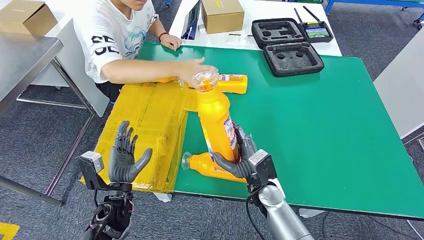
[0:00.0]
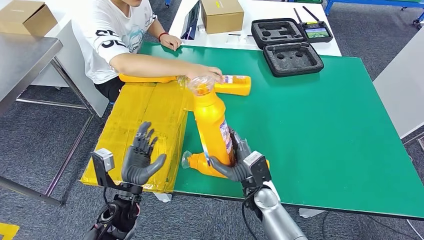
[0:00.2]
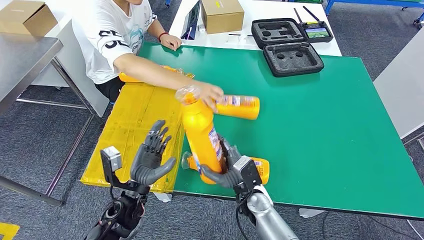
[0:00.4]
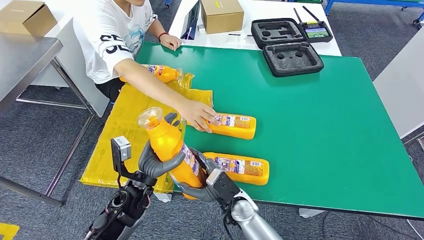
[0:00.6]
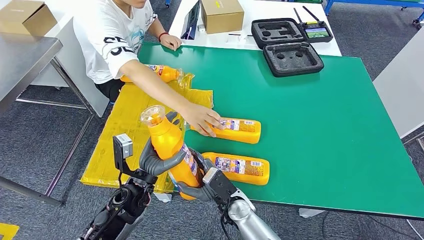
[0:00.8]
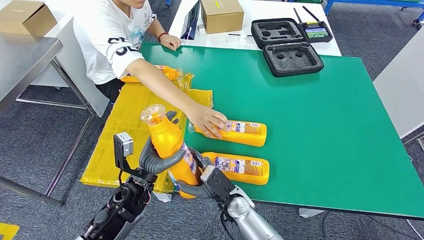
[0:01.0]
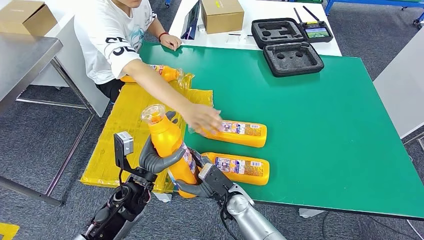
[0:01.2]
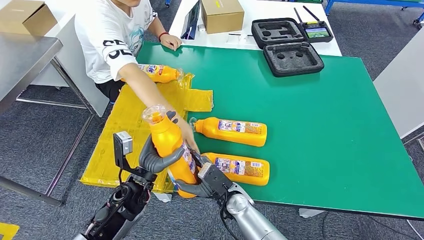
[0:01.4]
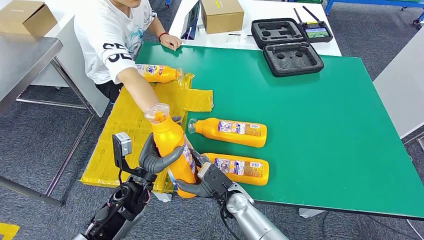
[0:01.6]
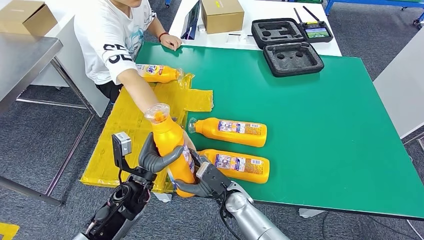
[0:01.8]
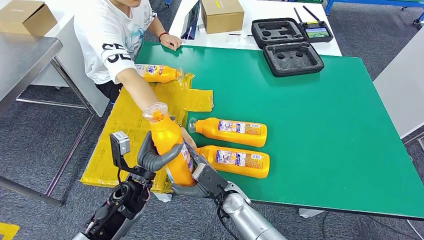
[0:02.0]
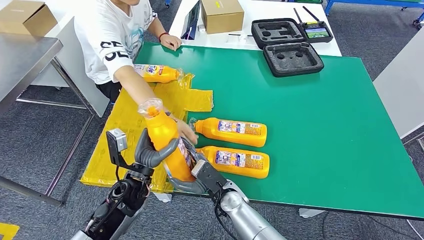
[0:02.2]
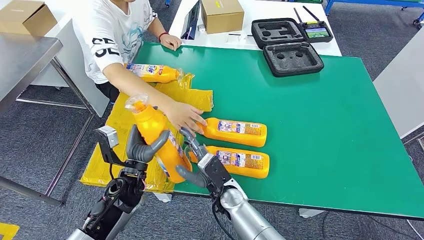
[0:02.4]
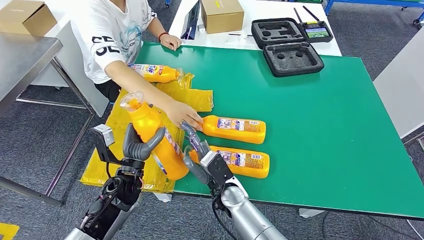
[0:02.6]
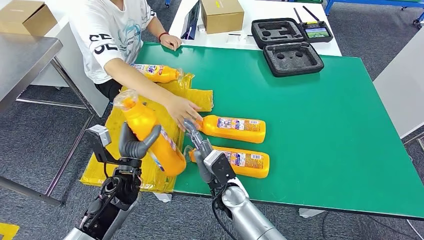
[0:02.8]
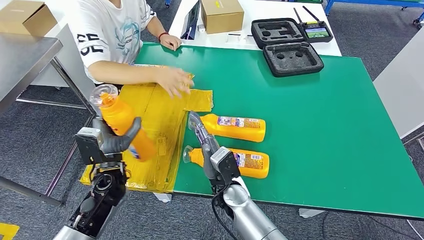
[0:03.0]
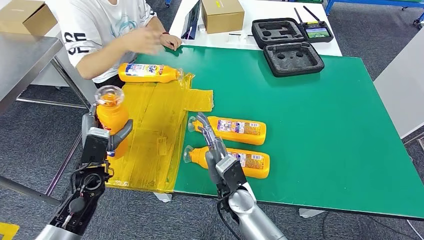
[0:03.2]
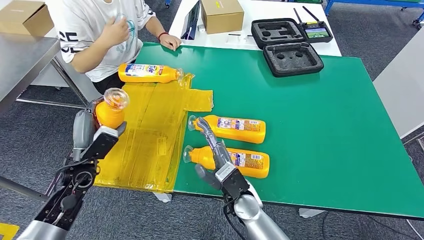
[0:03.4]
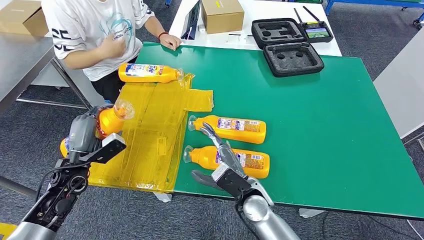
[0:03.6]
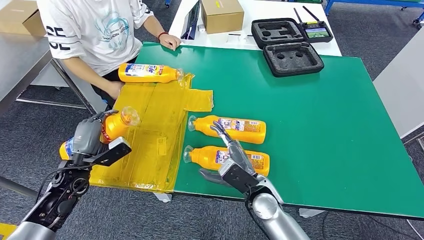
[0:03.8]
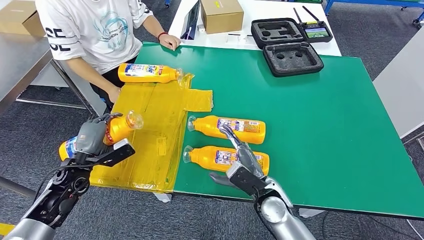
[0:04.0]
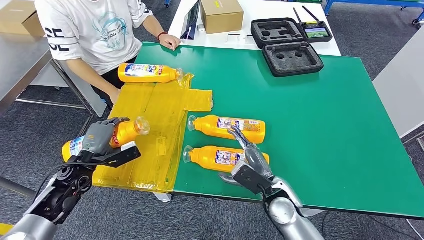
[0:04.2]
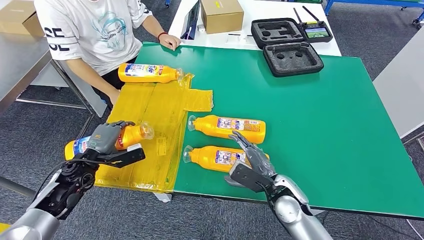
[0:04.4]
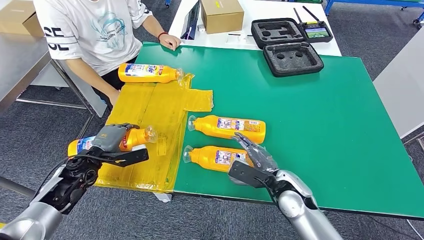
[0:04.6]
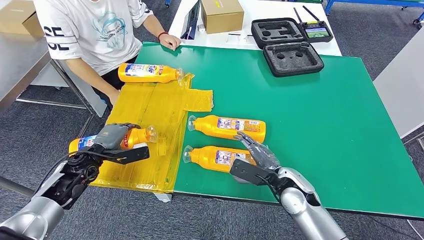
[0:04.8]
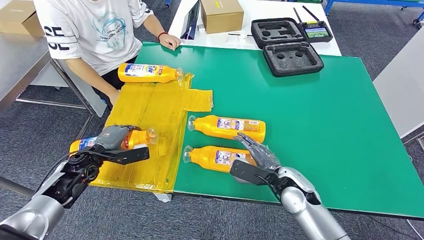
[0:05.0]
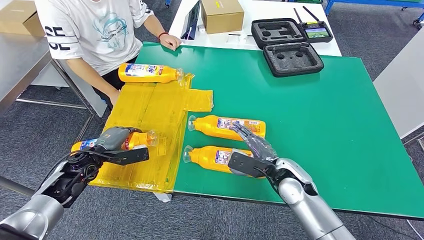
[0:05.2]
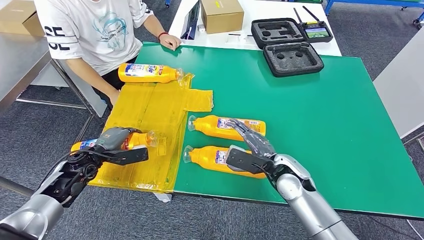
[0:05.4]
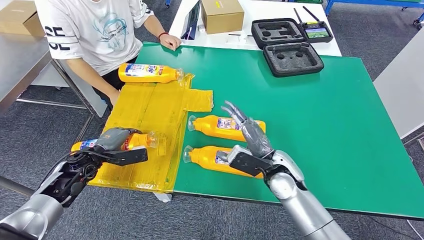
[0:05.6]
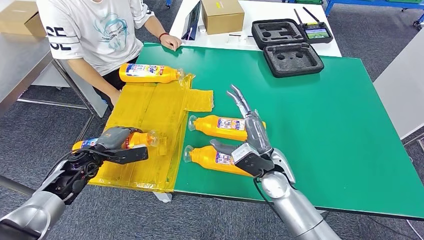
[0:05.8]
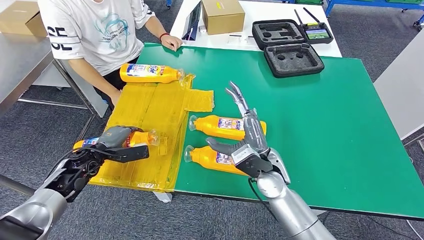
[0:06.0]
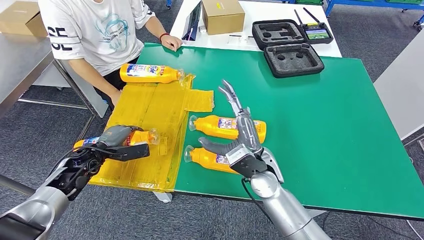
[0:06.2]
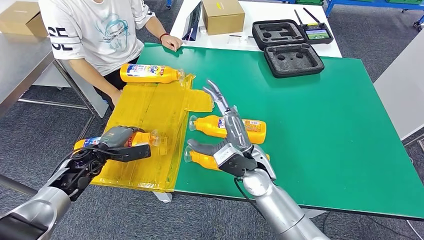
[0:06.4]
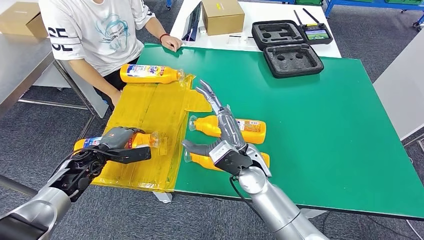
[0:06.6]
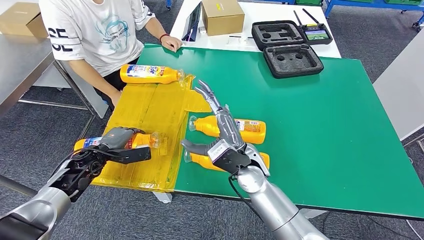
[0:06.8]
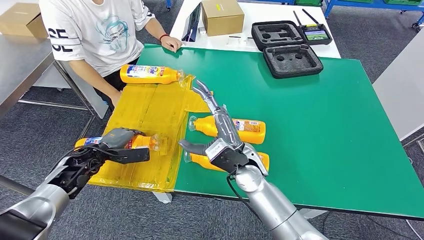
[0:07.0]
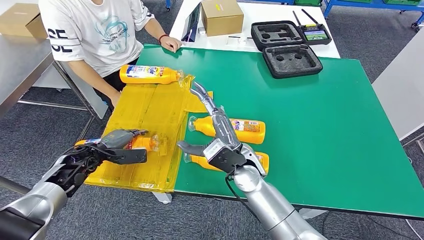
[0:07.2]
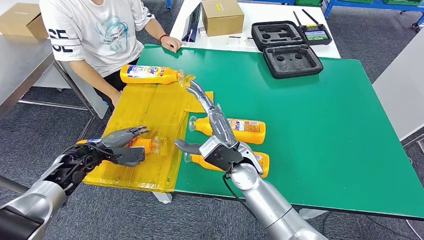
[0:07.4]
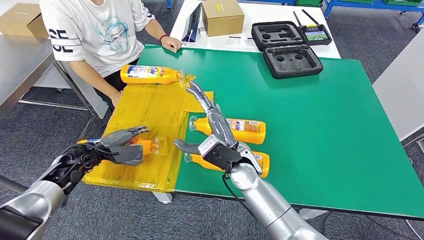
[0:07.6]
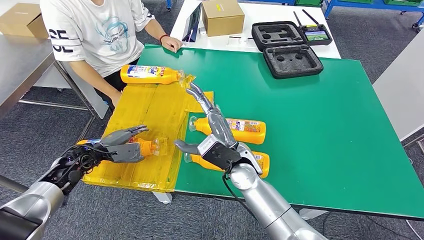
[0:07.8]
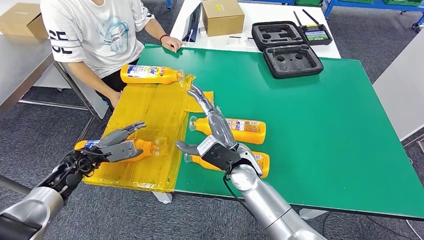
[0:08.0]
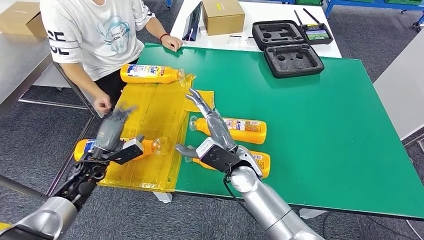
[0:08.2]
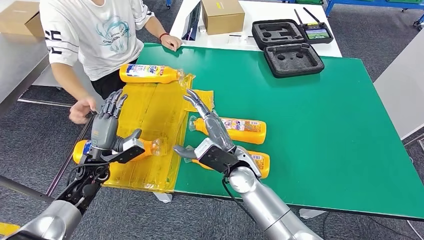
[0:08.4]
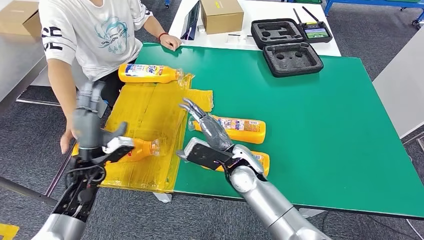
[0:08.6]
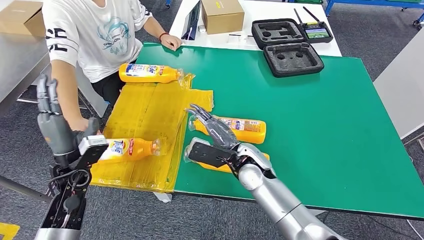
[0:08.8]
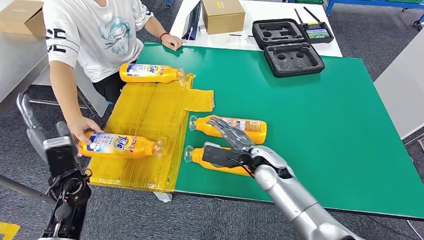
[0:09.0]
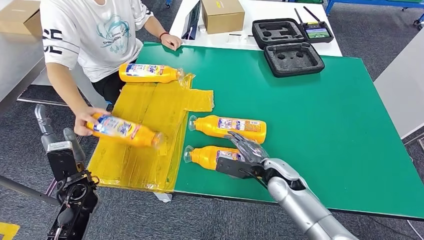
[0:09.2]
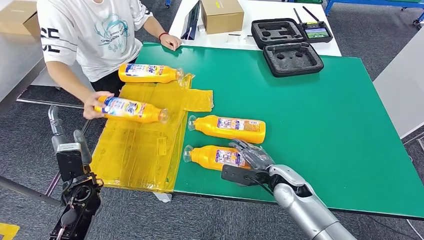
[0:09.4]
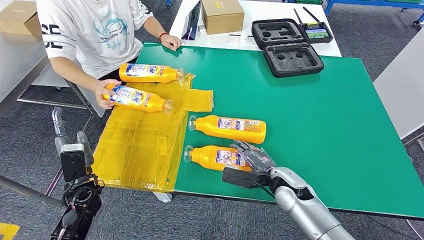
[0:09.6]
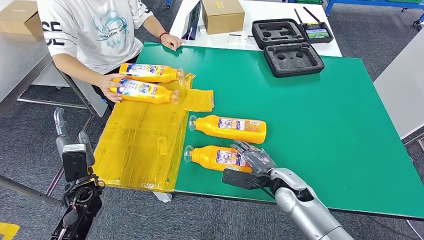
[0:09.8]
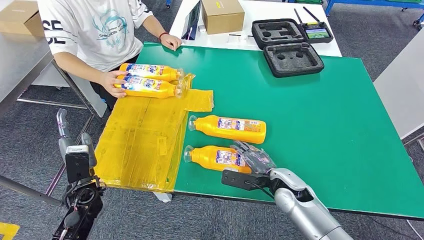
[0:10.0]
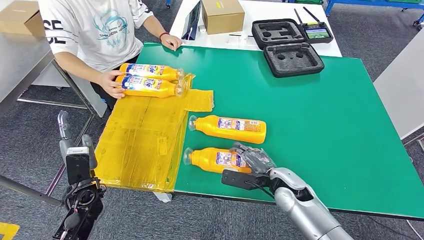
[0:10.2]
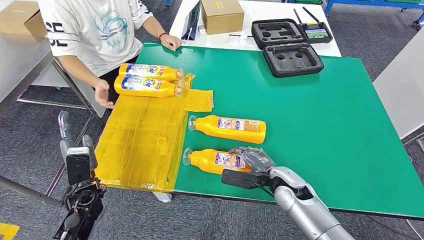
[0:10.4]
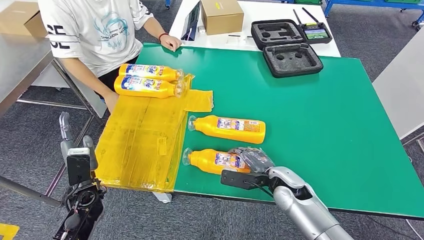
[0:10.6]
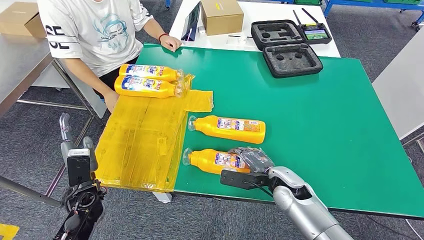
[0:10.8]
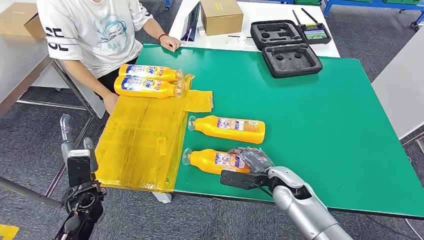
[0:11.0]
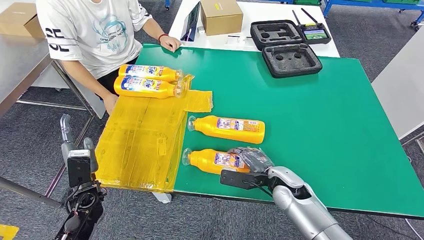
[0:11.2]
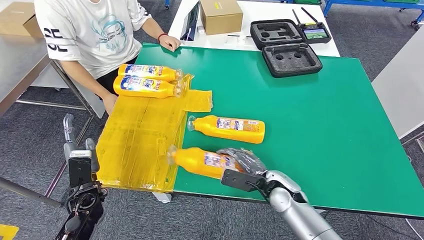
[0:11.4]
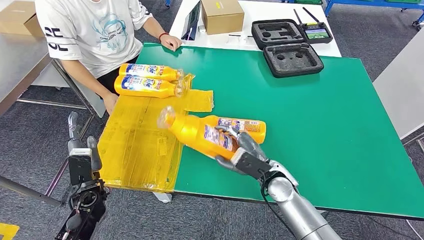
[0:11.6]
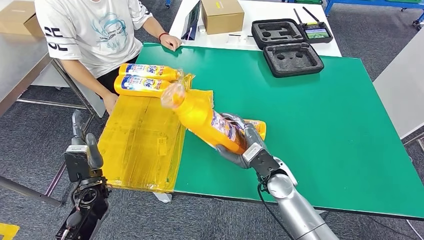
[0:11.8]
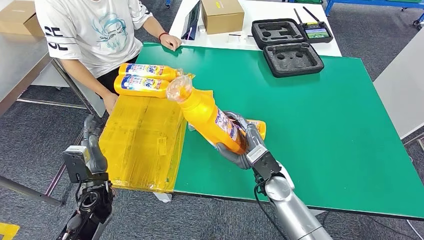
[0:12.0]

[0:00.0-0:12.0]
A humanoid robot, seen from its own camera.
Step, 0:00.0 to 0:05.2: Flip the bottle to face forward.
Step, 0:05.4 to 0:11.8: Pick up the bottle from the table.
0:00.0 to 0:01.6: The left hand shifts by about 5 cm. The right hand heads to the left, covering approximately 10 cm.
0:01.6 to 0:03.0: The left hand travels to the left by approximately 5 cm; the right hand is displaced upward by roughly 5 cm.
0:04.4 to 0:06.0: The right hand shifts roughly 10 cm upward and to the left.
0:10.4 to 0:12.0: The right hand shifts by roughly 5 cm.

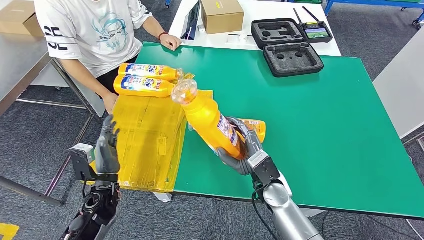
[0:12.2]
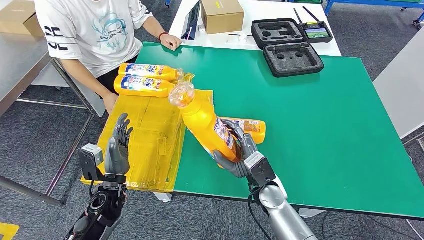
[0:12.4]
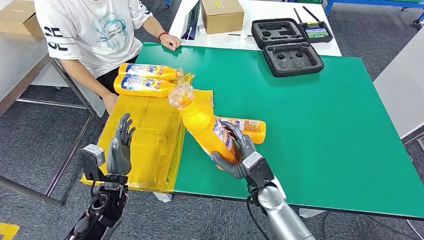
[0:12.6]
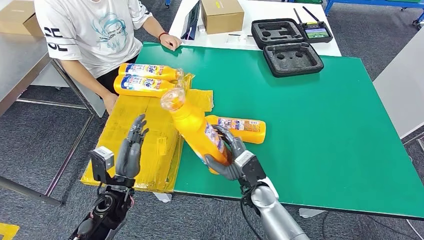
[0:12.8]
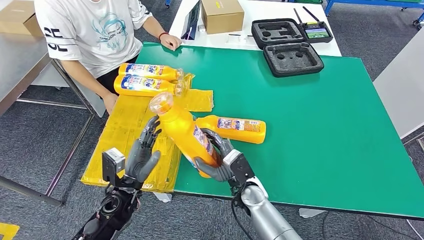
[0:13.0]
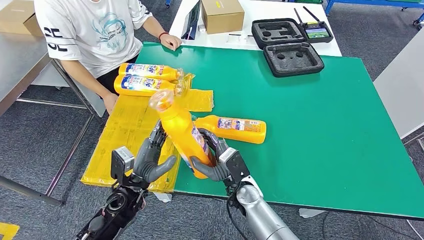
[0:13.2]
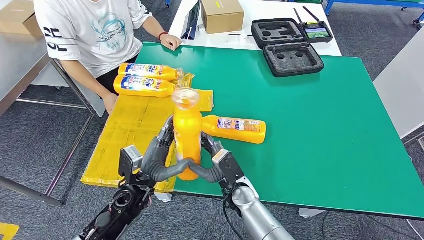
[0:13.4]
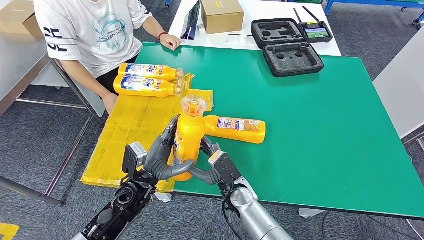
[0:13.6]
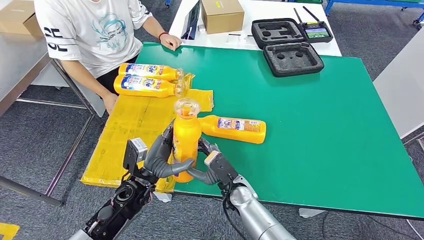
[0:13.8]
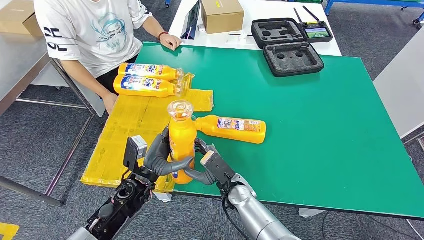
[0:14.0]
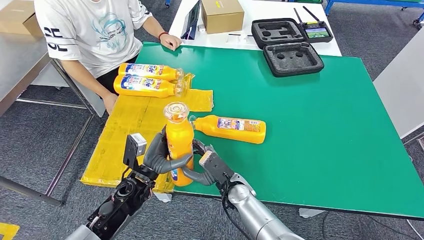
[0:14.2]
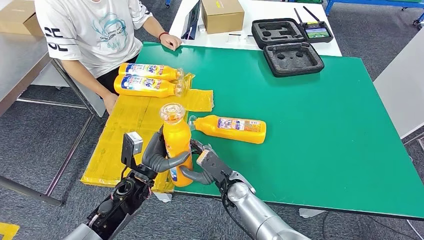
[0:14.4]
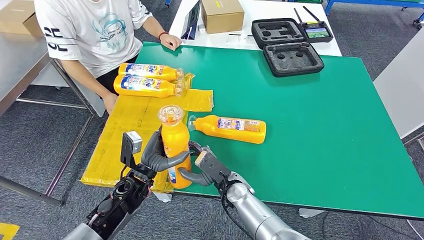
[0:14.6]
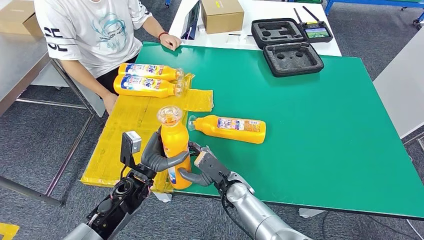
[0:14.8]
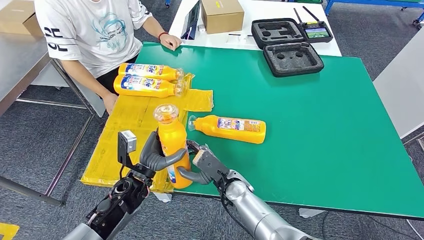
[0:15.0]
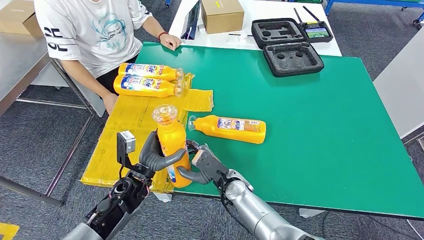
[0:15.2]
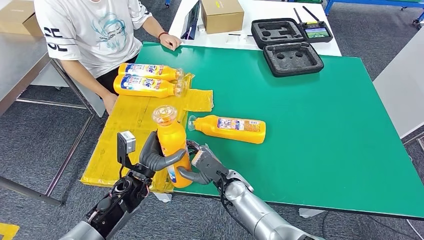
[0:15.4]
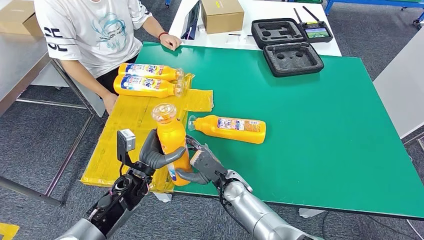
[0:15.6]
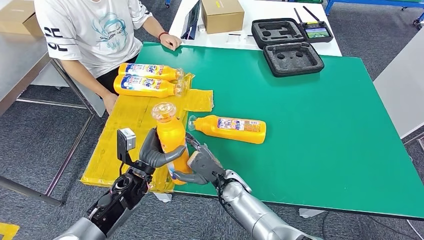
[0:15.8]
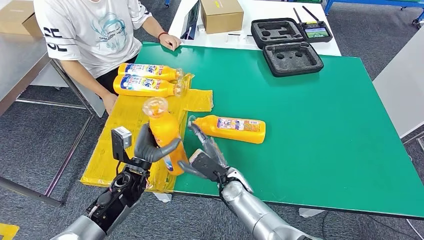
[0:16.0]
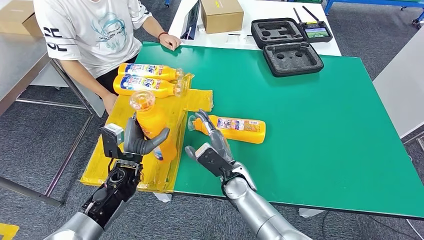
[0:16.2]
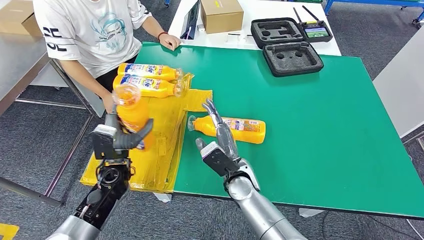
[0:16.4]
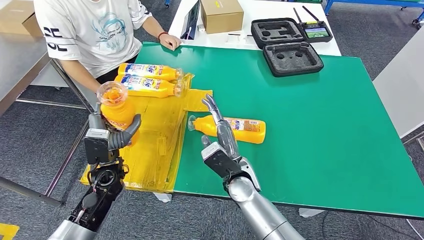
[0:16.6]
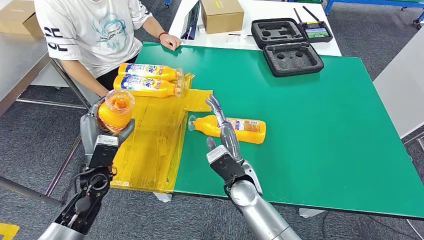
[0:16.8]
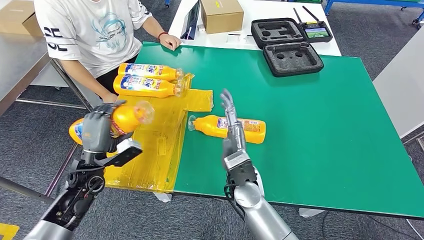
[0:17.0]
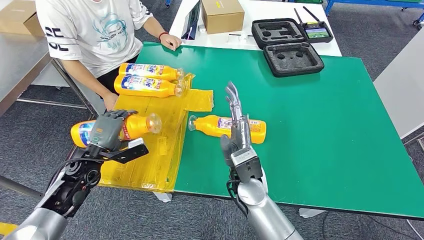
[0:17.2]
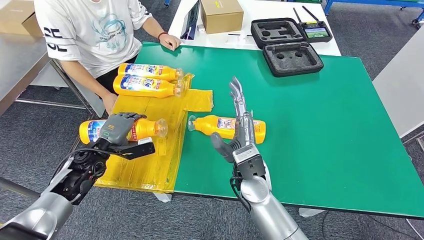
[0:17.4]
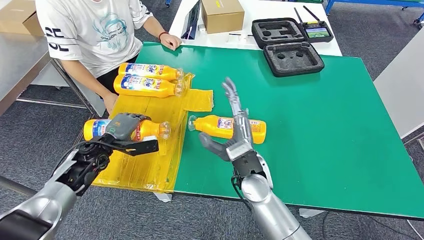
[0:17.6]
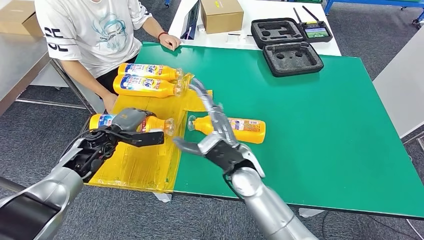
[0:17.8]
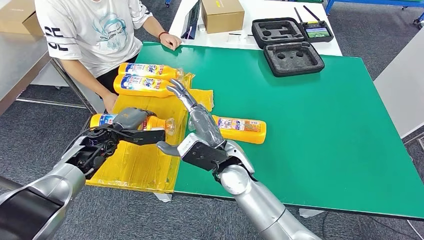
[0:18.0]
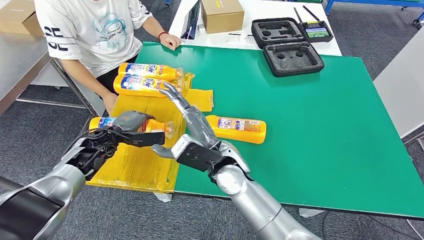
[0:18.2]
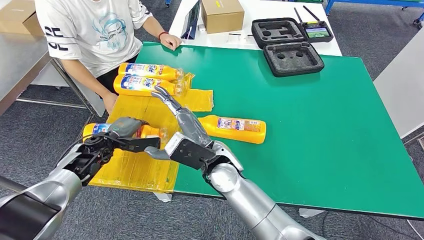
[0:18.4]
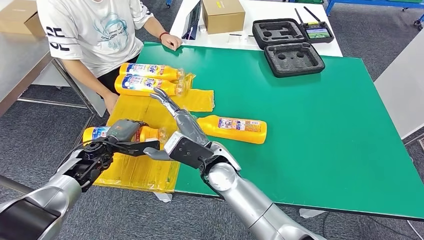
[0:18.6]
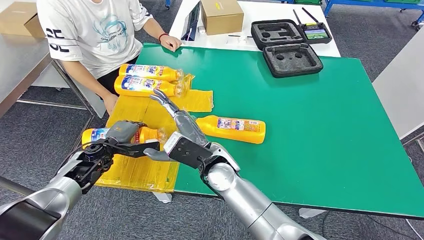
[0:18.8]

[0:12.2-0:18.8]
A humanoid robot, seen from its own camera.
Step, 0:12.2 to 0:17.6: Flip the bottle to face forward.
0:12.2 to 0:13.8: The right hand moves to the left, roughly 10 cm. Meanwhile the left hand heads to the right, covering some 10 cm.
0:13.8 to 0:15.4: The hands stay close to where they were, moving slightly.
0:15.4 to 0:17.2: The left hand heads to the left, covering approximately 15 cm, while the right hand shifts roughly 10 cm upward.
0:17.2 to 0:18.8: The right hand heads to the left, covering approximately 5 cm. Meanwhile the left hand changes place by approximately 5 cm.
